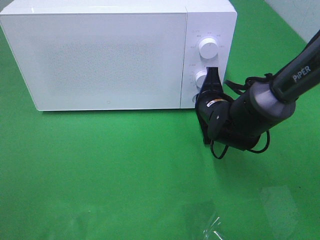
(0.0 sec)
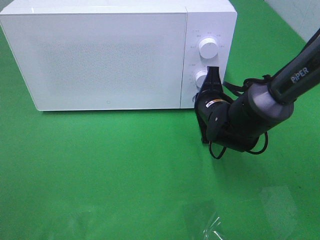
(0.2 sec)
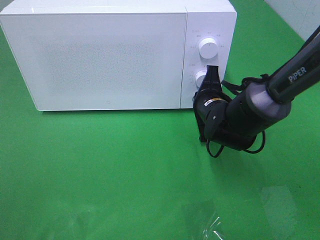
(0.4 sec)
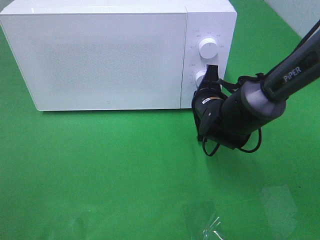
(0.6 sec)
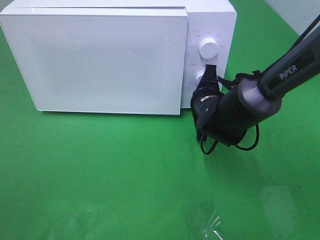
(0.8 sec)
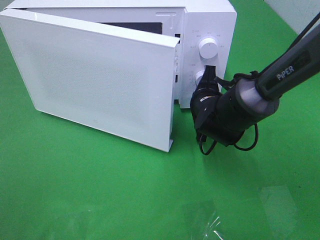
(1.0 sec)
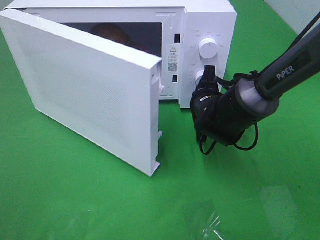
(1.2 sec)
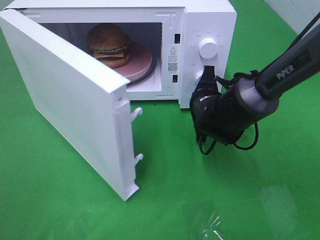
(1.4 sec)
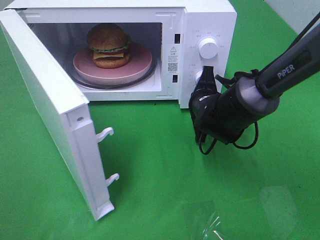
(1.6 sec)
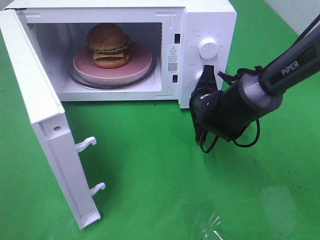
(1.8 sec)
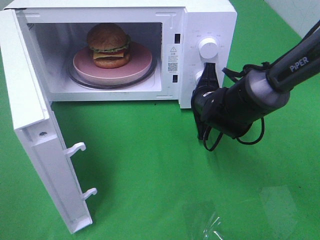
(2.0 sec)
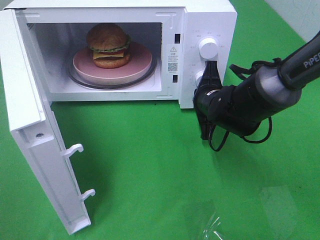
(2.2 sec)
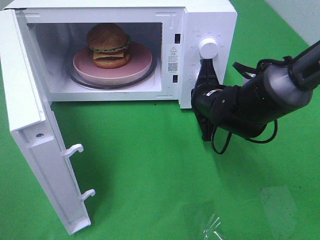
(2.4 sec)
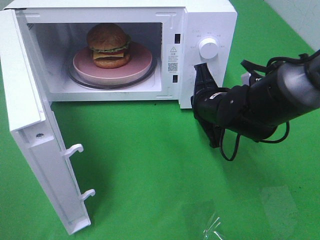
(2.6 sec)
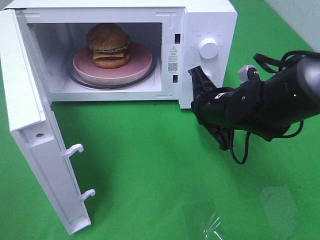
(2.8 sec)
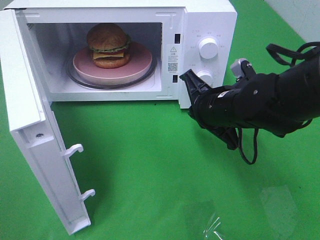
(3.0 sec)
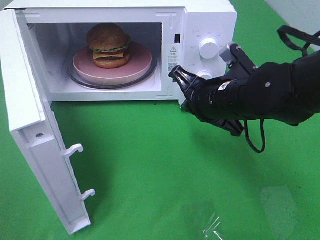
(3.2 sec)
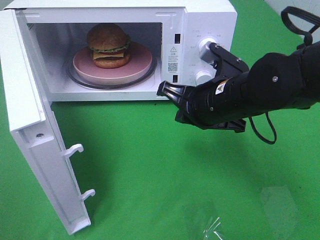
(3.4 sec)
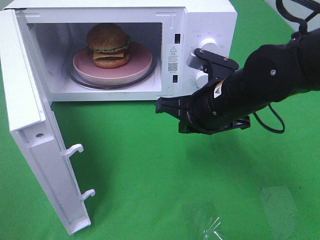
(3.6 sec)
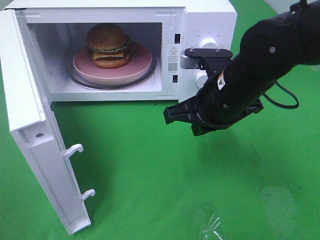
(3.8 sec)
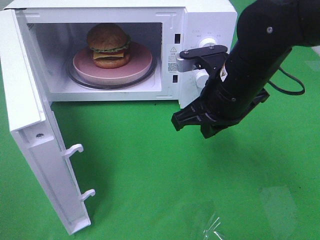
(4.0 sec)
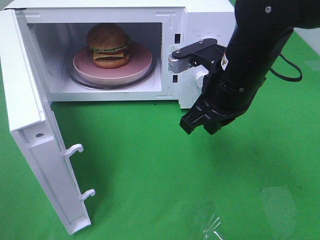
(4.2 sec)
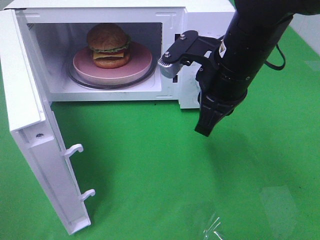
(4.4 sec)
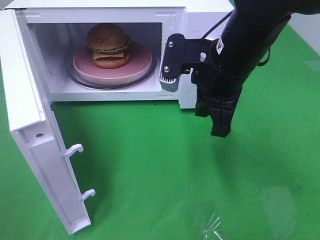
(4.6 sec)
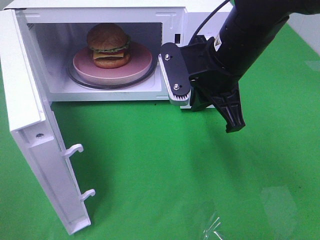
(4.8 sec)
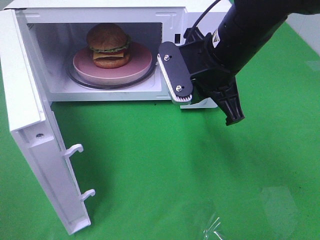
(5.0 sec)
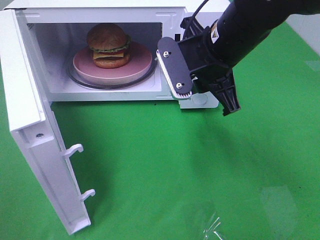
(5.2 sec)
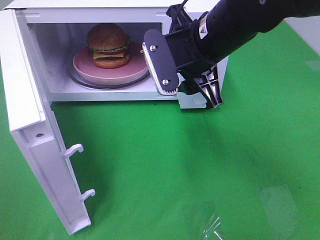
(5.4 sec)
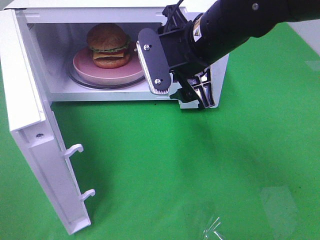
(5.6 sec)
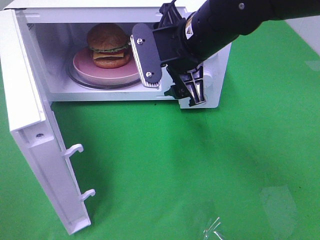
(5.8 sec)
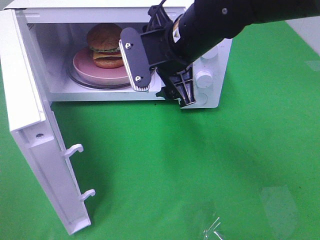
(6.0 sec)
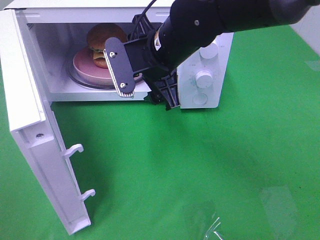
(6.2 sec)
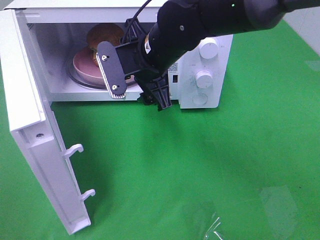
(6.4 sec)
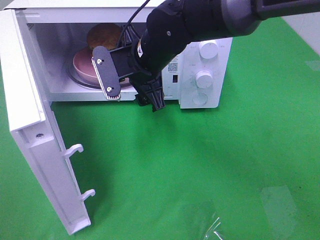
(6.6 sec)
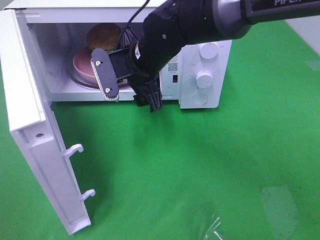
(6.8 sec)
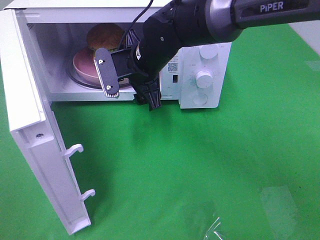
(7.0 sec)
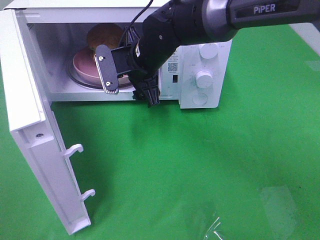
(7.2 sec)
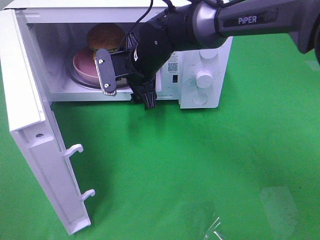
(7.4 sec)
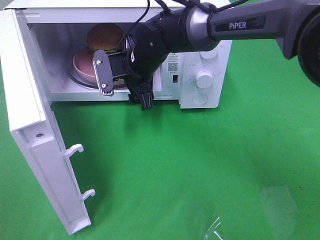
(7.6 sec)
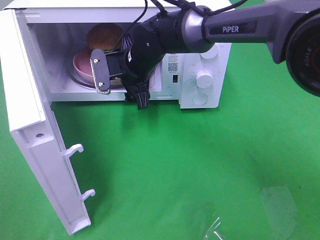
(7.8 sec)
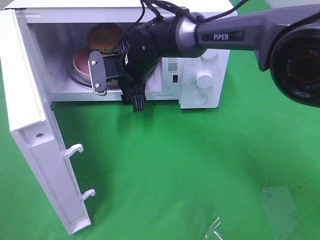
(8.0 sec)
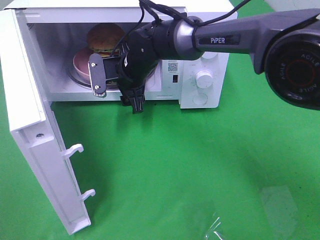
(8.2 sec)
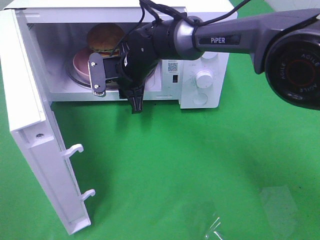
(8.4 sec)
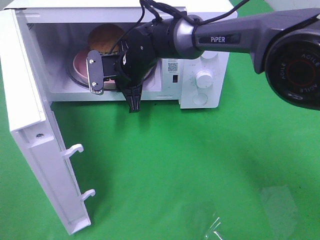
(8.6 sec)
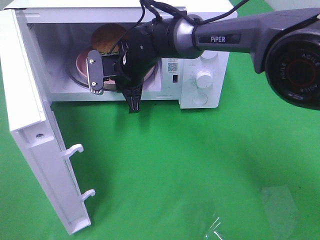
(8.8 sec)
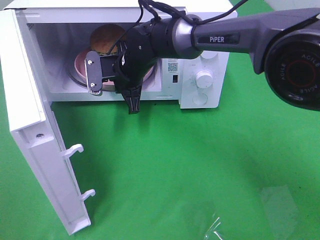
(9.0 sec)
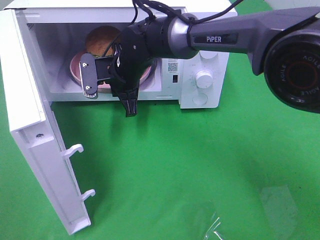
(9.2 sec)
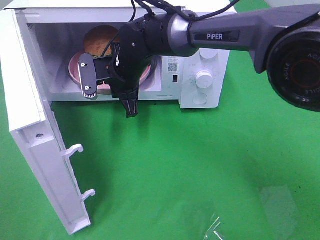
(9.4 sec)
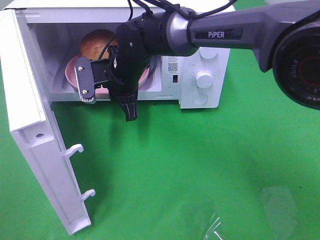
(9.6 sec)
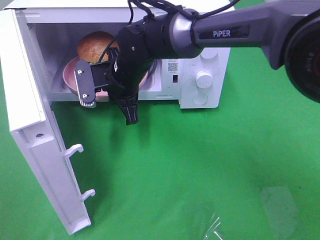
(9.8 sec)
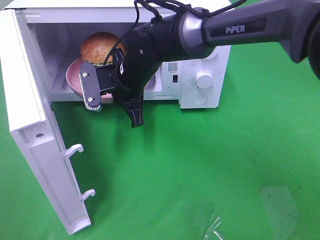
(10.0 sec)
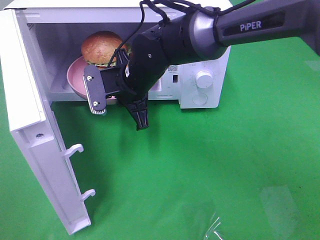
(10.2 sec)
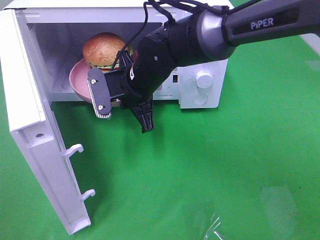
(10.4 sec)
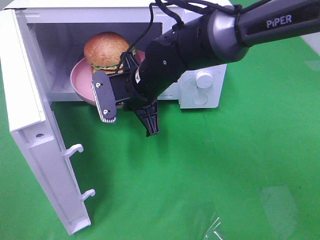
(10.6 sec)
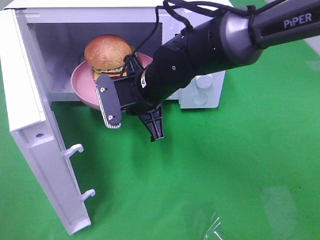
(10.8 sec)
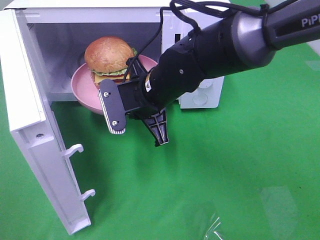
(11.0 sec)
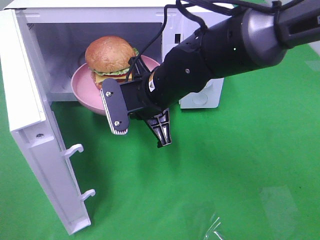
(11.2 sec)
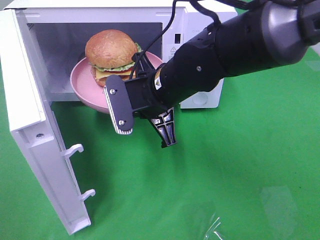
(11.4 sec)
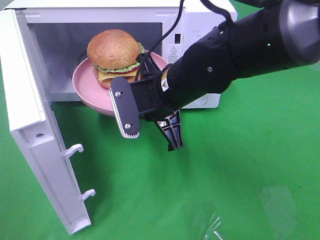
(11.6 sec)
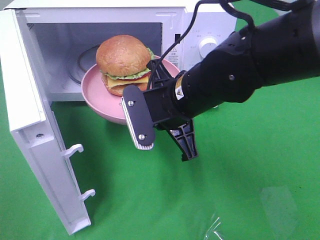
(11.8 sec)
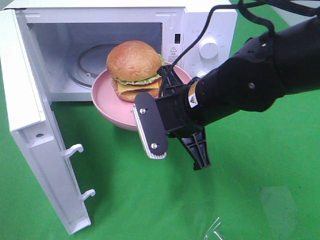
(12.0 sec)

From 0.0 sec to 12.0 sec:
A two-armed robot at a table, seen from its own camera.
Task of the whole recording: Heat the burger.
Step, from 0.0 sec to 2.6 sec: Right hand: press the switch.
Step, from 2.8 sec to 8.8 sec: Right hand: grab the plate with the hamburger.
From 1.6 sec to 3.0 sec: The right gripper travels backward and upward by some 10 cm.
From 3.0 sec to 4.4 sec: The right gripper shifts approximately 10 cm upward.
From 4.4 sec to 6.0 sec: The right gripper travels to the left by some 5 cm, and opens.
From 6.0 sec to 7.6 sec: The right gripper is displaced forward, downward and to the left by some 15 cm.
From 7.6 sec to 9.0 sec: The right gripper closes its fingers.
From 9.0 sec to 10.4 sec: The right gripper goes approximately 5 cm backward.
From 10.4 sec to 12.0 sec: The right gripper goes roughly 15 cm backward and to the right.

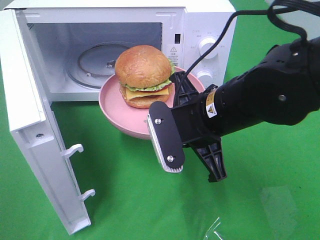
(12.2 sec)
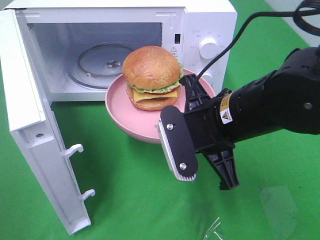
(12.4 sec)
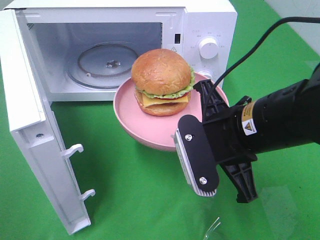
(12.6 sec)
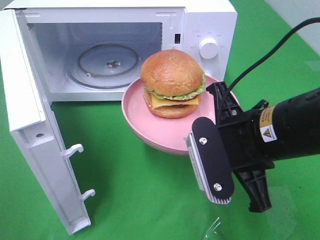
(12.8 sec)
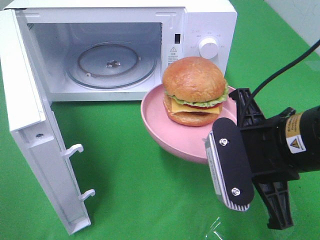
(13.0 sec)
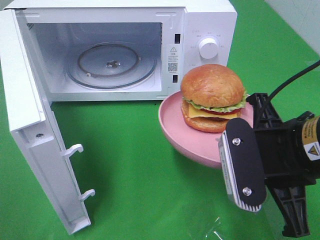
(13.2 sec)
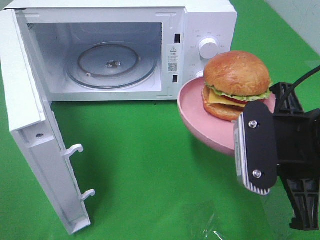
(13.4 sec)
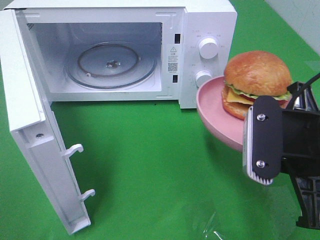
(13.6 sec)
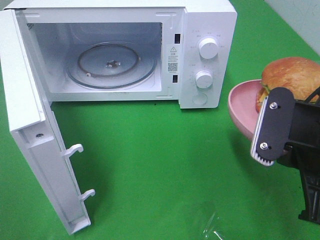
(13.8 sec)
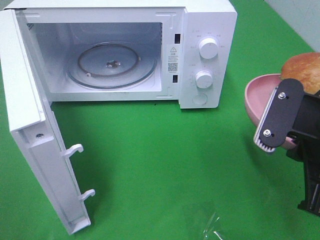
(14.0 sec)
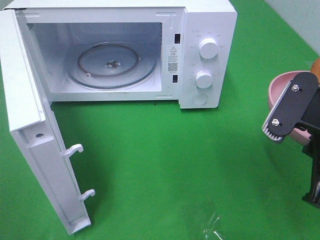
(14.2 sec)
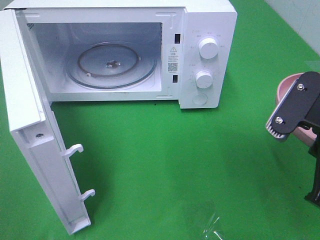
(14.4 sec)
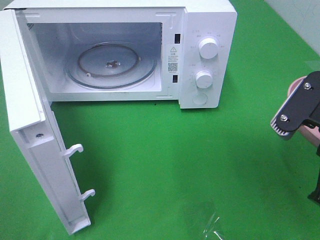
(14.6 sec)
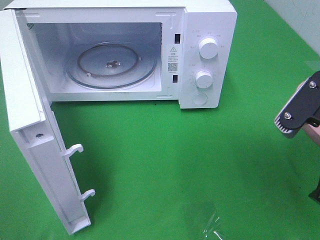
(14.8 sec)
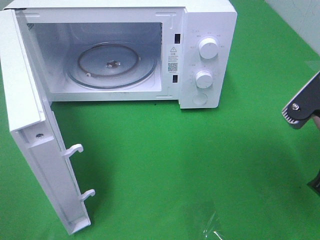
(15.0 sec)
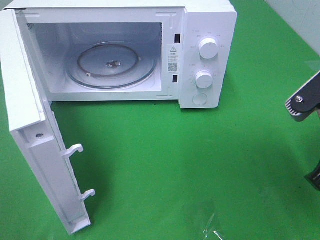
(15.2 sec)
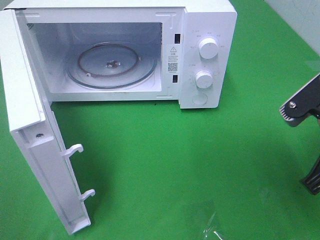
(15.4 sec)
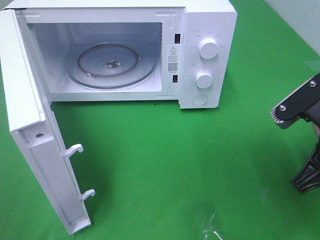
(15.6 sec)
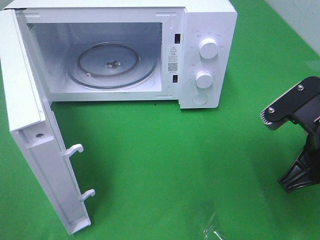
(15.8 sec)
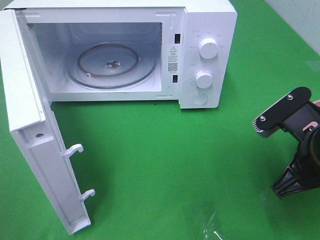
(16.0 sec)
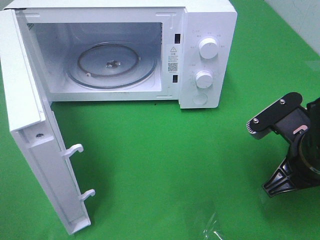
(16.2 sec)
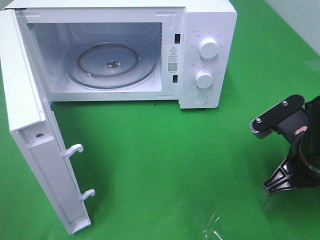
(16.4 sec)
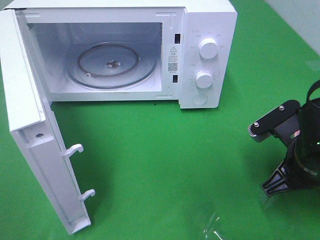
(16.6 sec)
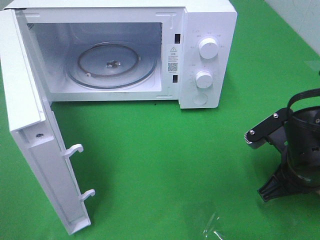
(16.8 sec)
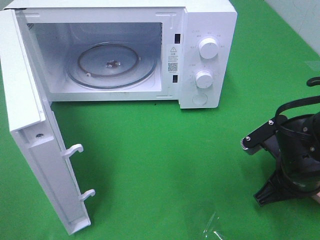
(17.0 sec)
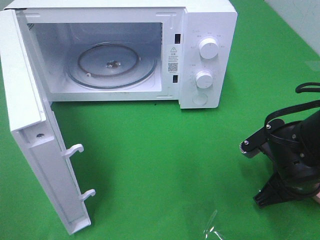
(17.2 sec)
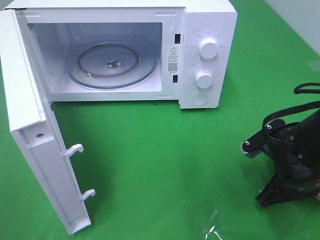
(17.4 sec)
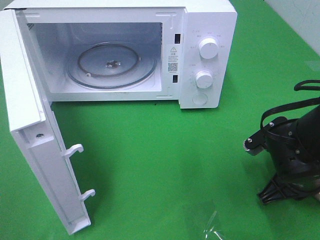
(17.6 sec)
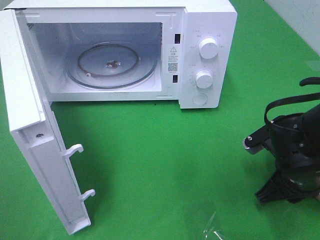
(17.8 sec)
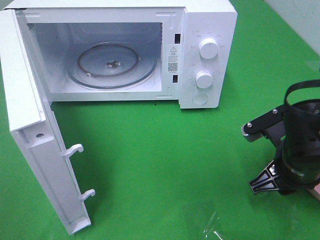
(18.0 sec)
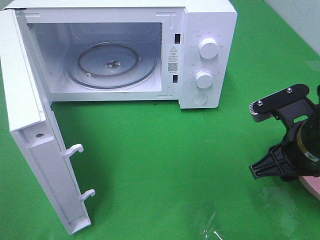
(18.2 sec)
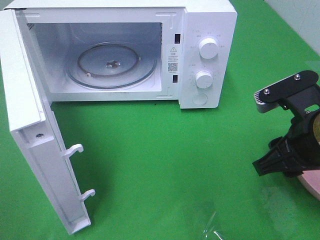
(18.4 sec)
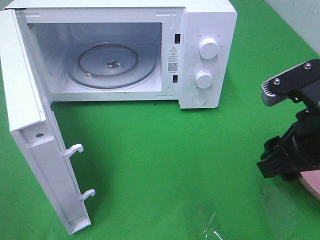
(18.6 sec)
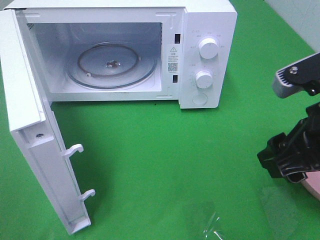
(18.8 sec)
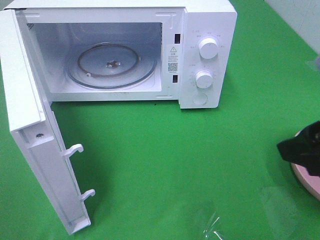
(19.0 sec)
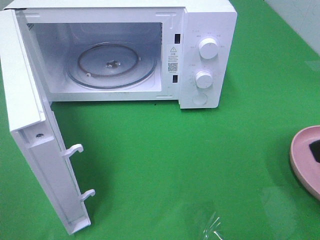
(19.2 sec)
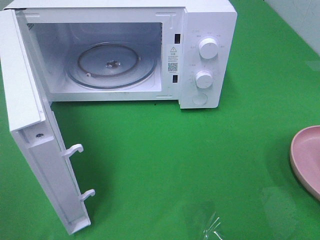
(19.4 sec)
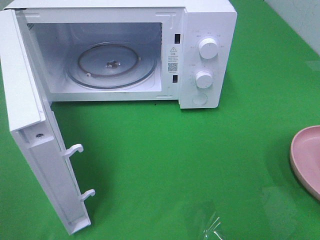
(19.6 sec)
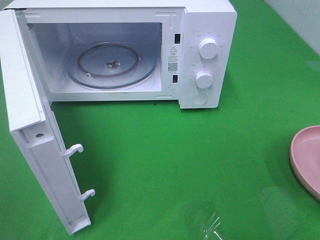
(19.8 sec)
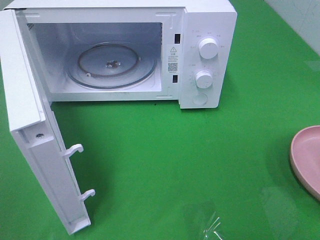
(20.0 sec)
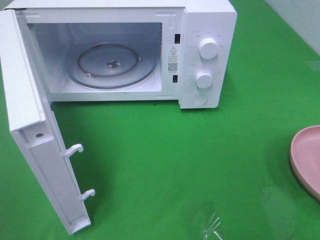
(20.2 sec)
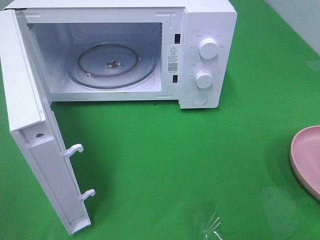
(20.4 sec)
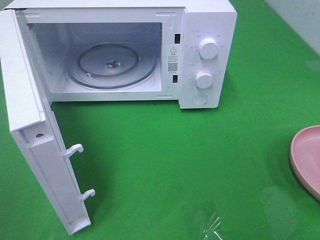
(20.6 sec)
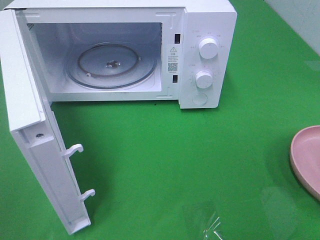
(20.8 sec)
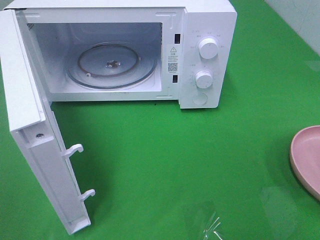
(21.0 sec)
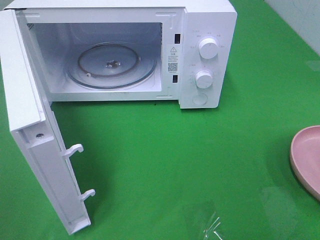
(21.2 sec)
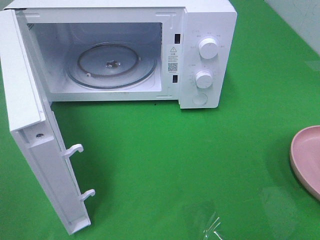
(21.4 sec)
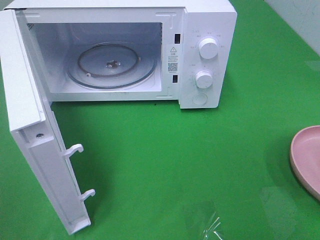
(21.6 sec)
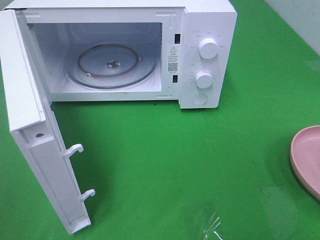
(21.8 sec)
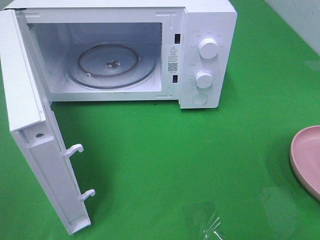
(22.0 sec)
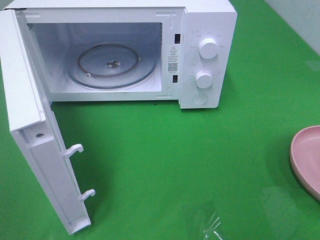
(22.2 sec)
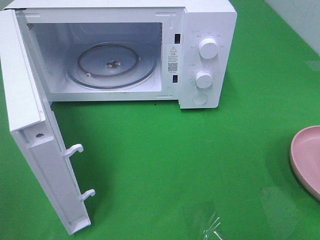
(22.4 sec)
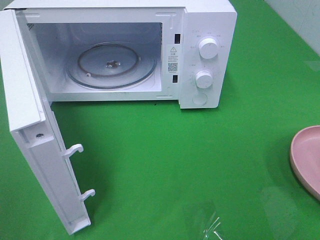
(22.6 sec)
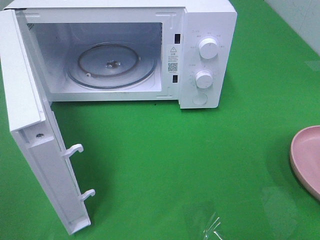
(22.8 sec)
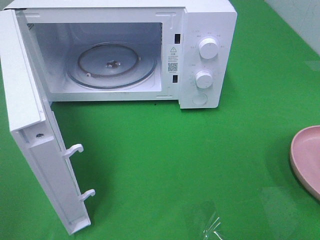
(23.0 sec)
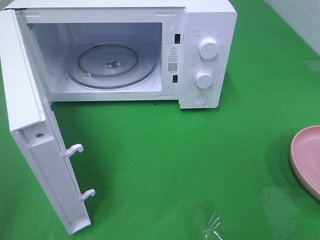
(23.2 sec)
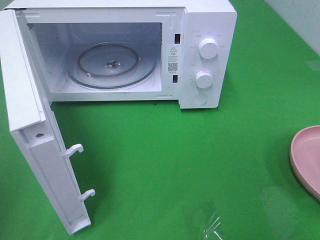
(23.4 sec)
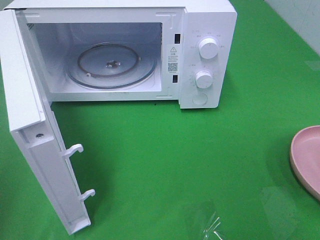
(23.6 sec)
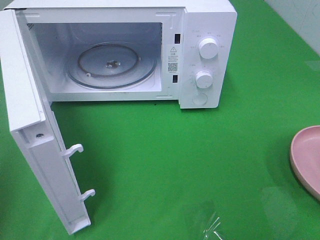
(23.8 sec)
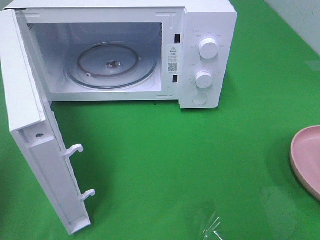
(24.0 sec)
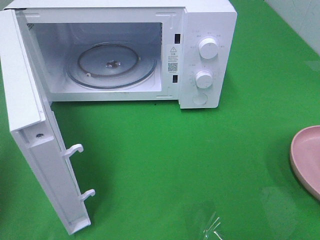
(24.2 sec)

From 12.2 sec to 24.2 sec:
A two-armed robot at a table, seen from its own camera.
Task of the whole recording: Heat the burger.
Step, from 12.2 sec to 18.6 sec: Right hand: place the plate on the table.
From 12.2 sec to 13.8 sec: The right gripper goes roughly 15 cm to the right and backward.
From 15.2 sec to 16.6 sec: The right gripper shifts approximately 10 cm downward.
From 16.6 sec to 18.2 sec: The right gripper opens.
From 18.2 sec to 19.8 sec: The right gripper moves backward, upward and to the right, roughly 25 cm.
From 21.2 sec to 22.6 sec: The two grippers keep their place.
